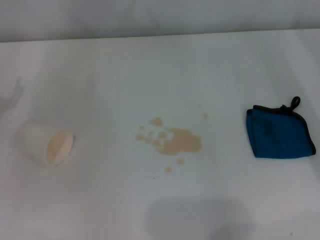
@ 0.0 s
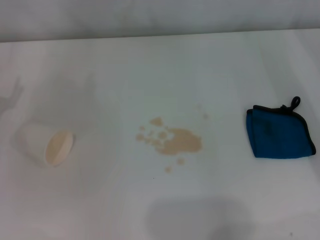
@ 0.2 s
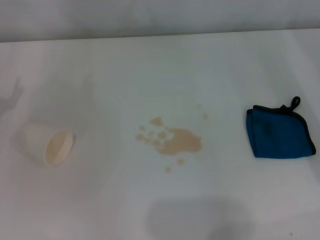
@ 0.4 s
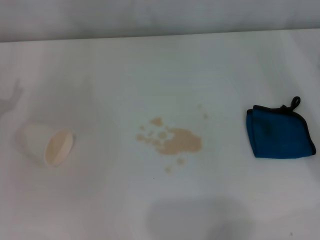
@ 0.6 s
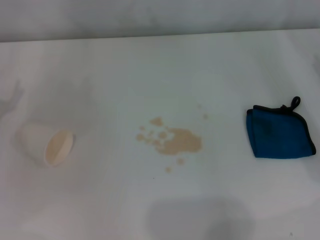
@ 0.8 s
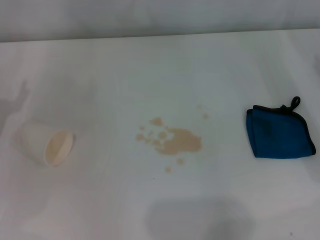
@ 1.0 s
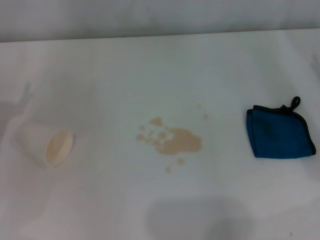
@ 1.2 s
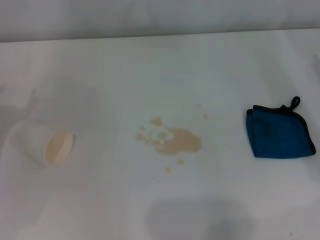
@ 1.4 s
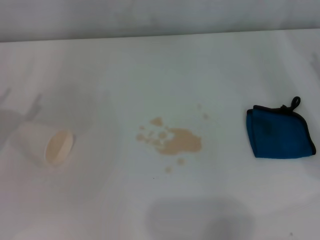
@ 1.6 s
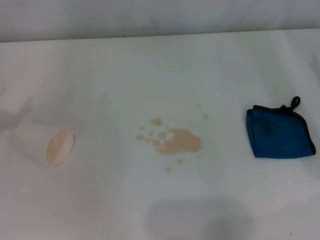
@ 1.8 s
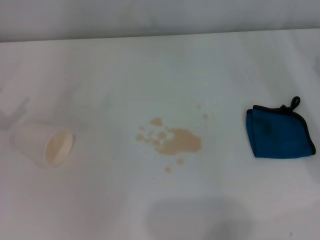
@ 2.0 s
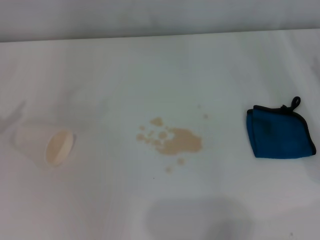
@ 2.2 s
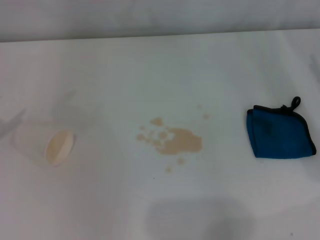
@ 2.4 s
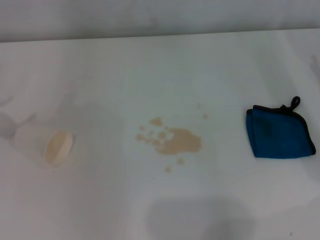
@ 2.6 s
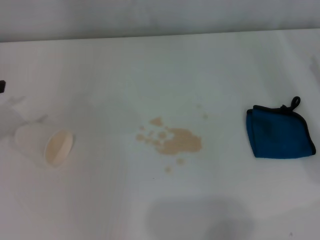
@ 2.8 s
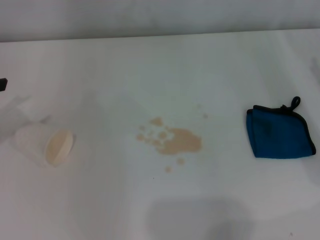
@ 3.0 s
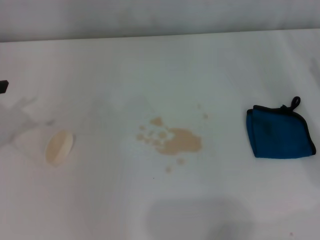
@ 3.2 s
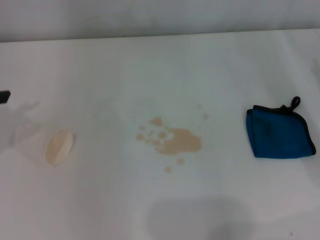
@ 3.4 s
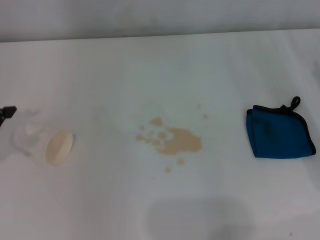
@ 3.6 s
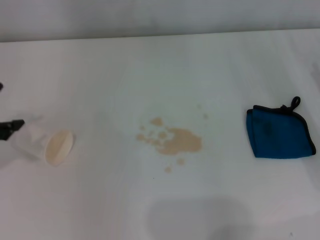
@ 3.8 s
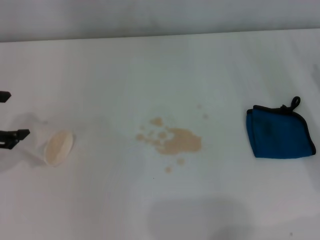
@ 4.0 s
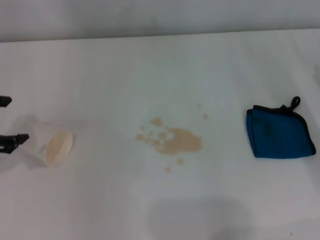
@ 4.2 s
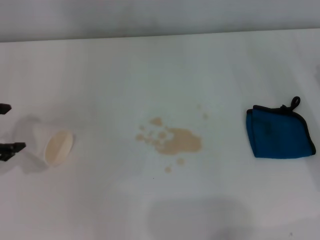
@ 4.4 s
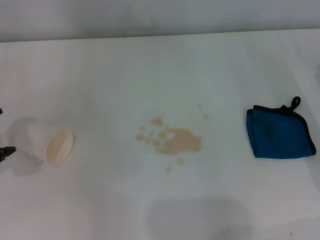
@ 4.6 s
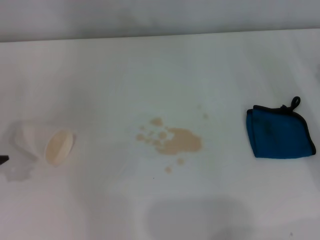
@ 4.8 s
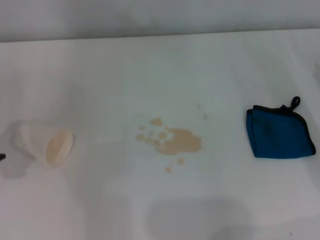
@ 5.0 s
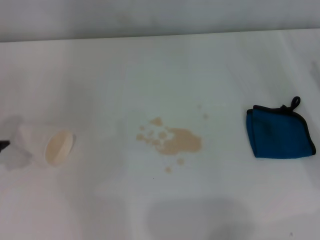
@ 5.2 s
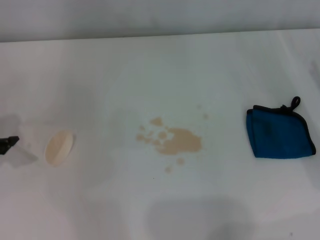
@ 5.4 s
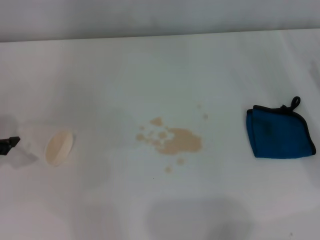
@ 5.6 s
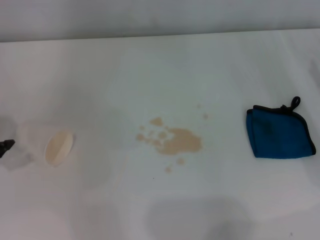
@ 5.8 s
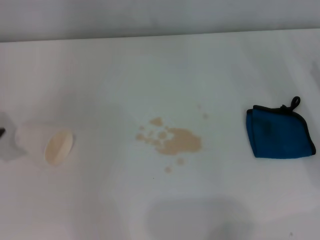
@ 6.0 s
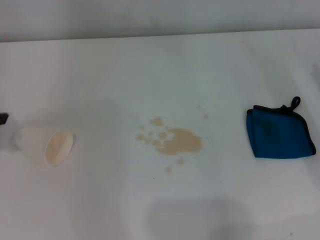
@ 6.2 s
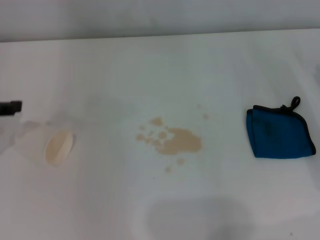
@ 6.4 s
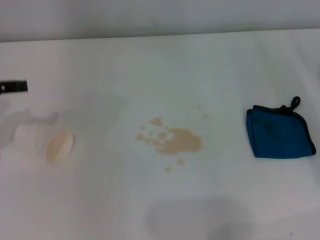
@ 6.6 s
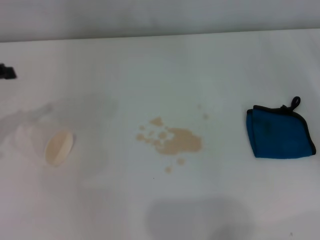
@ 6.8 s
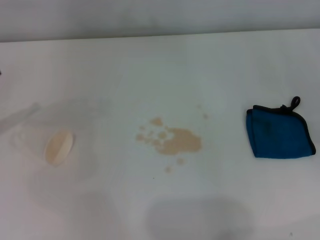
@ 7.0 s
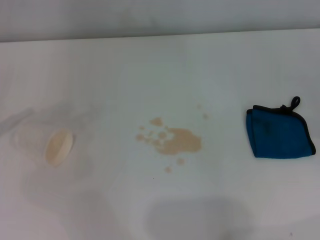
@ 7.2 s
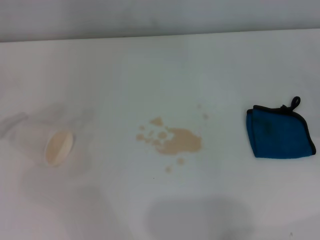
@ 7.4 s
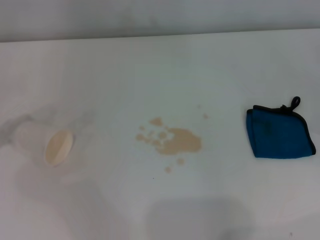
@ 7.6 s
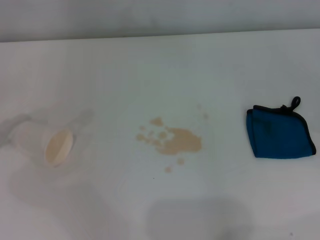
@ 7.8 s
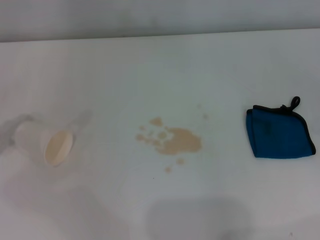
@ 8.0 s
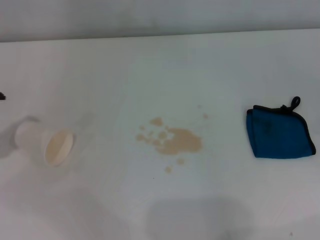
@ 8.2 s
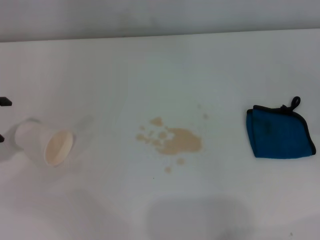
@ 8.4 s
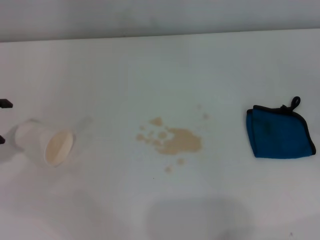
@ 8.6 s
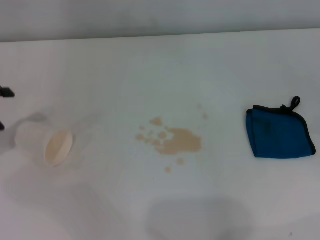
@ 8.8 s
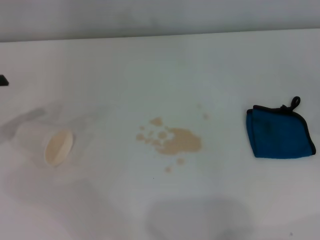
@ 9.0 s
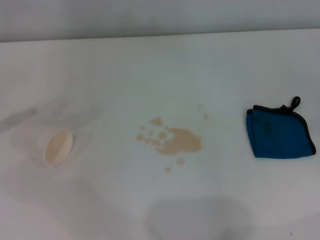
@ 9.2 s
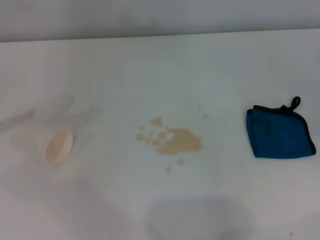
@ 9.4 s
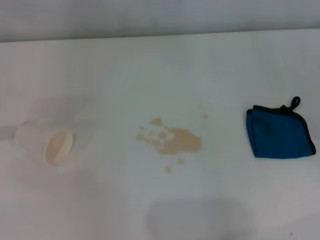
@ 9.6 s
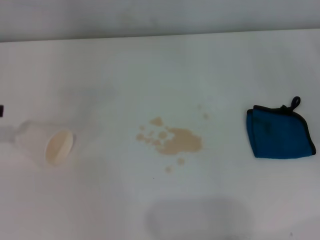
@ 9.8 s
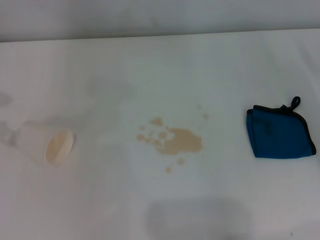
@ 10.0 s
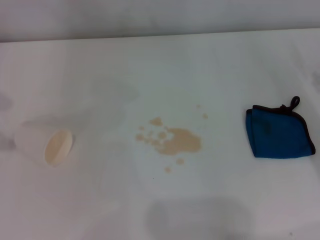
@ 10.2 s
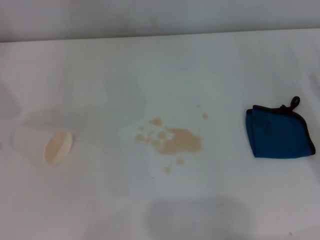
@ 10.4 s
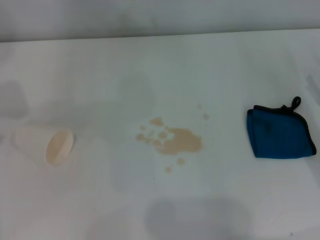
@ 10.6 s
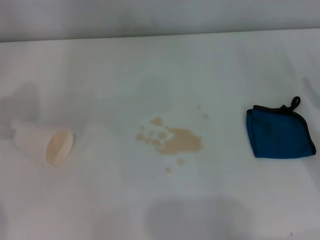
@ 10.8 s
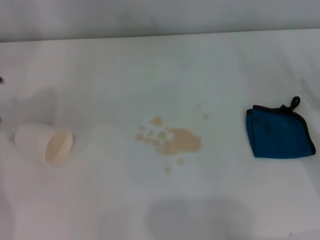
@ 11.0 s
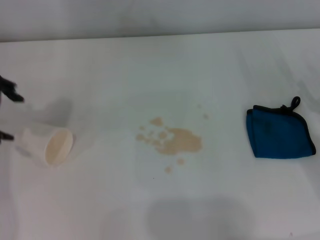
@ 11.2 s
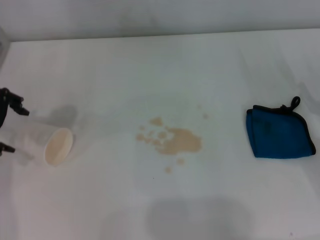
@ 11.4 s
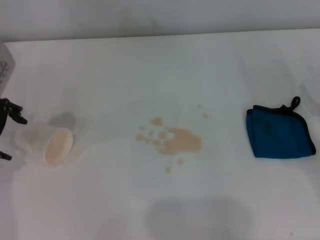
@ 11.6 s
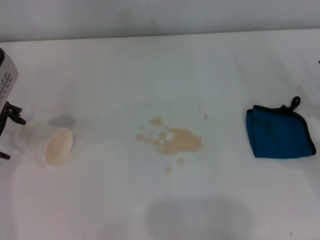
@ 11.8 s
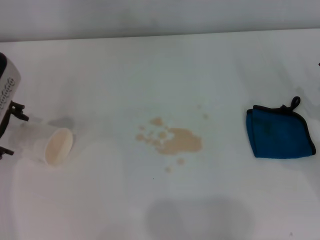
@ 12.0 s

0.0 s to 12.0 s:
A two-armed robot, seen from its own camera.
3.0 to 4.4 s: The left gripper changes place by approximately 5 cm.
4.4 to 6.0 s: The left gripper ends up about 5 cm from where it was.
10.4 to 12.0 s: The left gripper heads to the right and downward, covering approximately 10 cm.

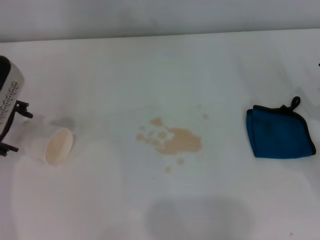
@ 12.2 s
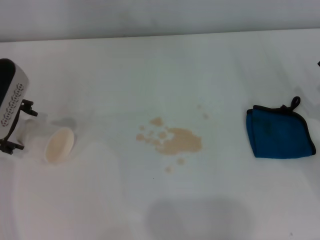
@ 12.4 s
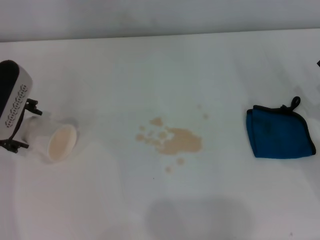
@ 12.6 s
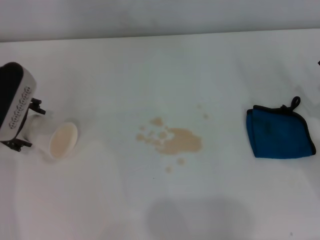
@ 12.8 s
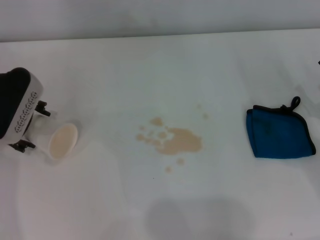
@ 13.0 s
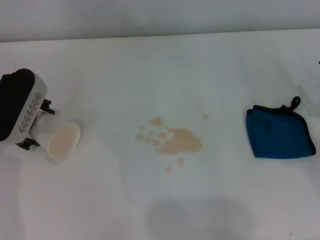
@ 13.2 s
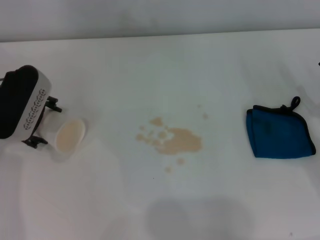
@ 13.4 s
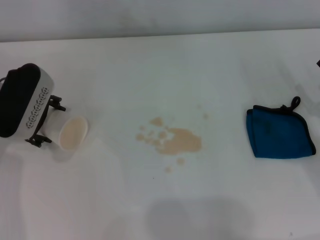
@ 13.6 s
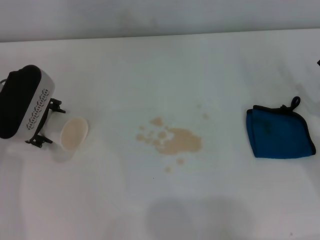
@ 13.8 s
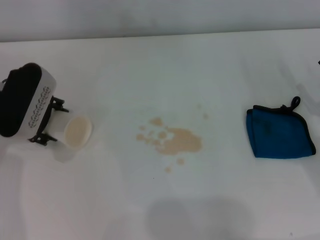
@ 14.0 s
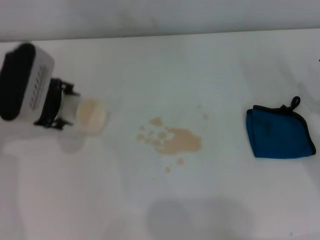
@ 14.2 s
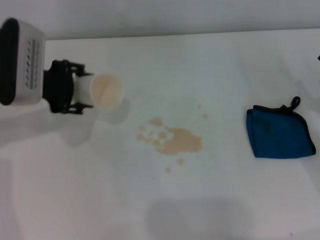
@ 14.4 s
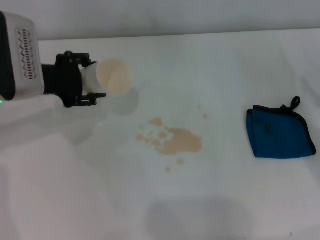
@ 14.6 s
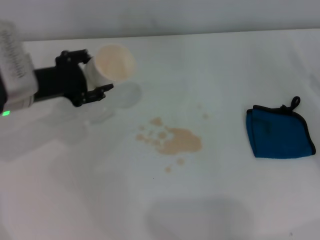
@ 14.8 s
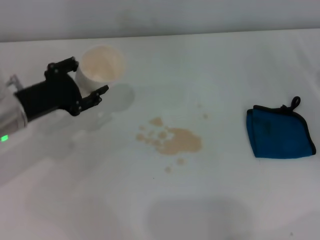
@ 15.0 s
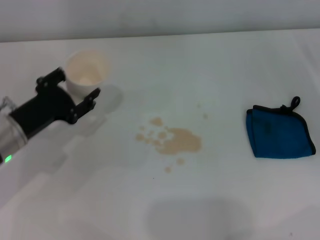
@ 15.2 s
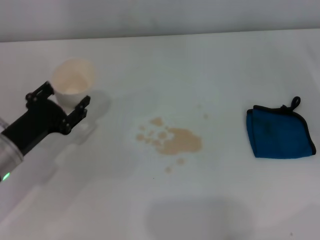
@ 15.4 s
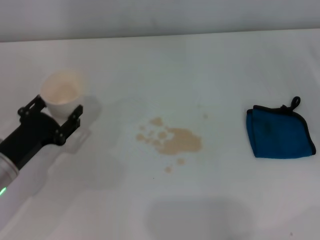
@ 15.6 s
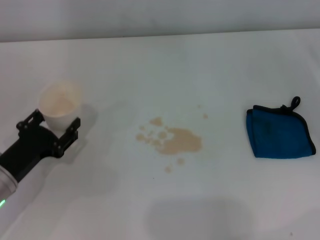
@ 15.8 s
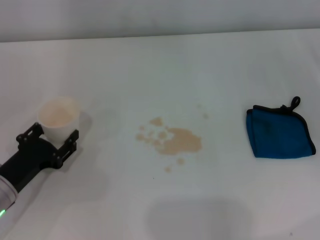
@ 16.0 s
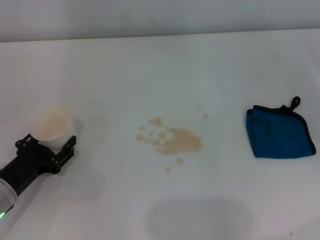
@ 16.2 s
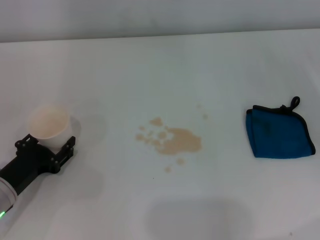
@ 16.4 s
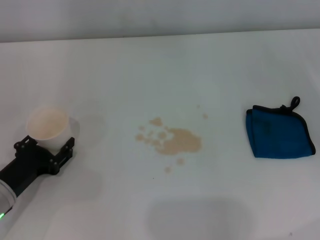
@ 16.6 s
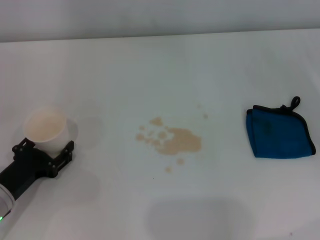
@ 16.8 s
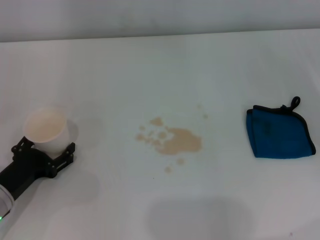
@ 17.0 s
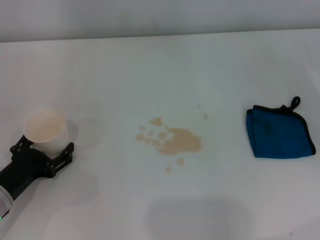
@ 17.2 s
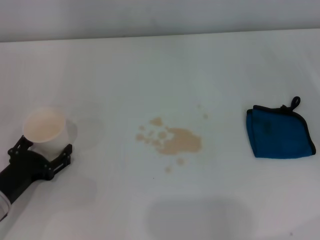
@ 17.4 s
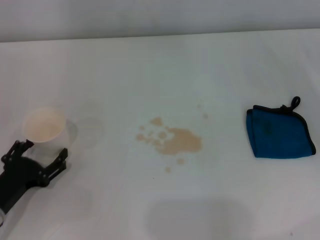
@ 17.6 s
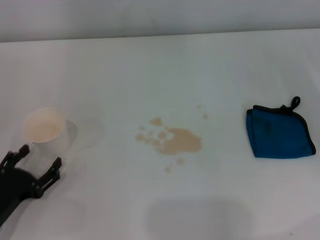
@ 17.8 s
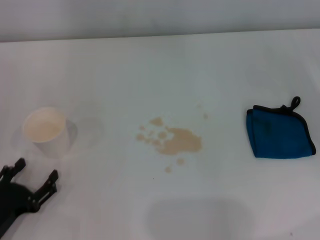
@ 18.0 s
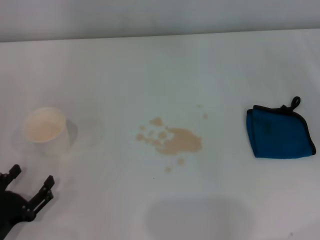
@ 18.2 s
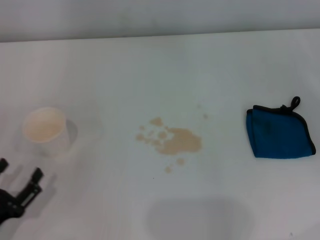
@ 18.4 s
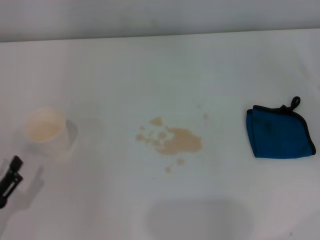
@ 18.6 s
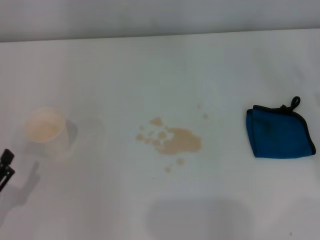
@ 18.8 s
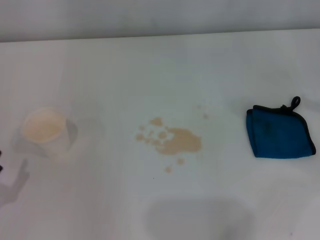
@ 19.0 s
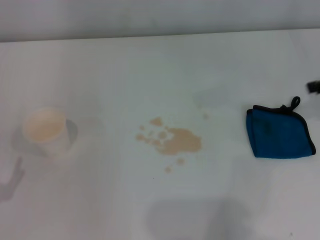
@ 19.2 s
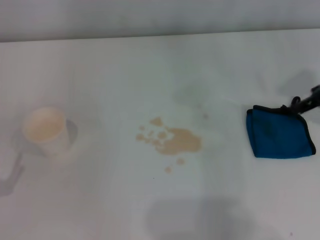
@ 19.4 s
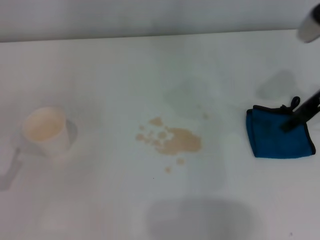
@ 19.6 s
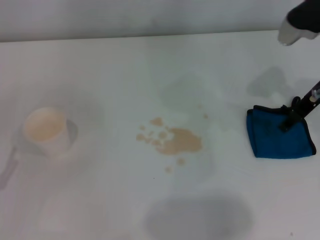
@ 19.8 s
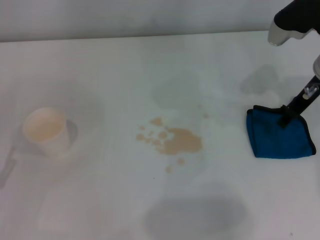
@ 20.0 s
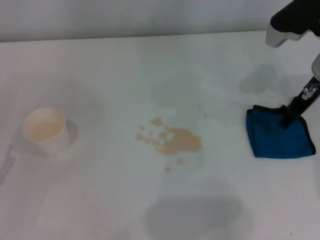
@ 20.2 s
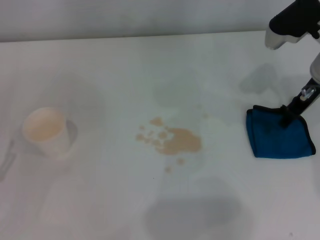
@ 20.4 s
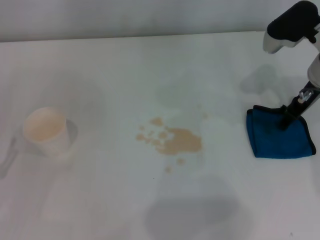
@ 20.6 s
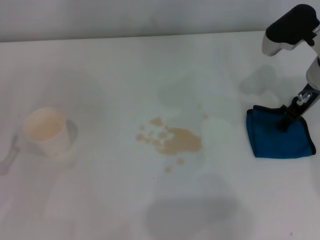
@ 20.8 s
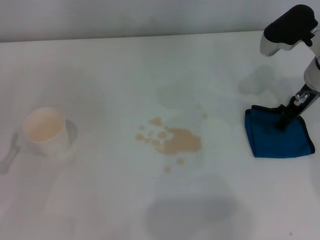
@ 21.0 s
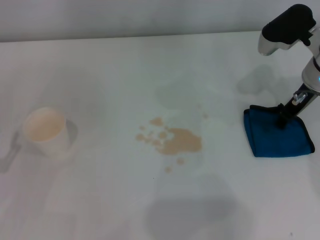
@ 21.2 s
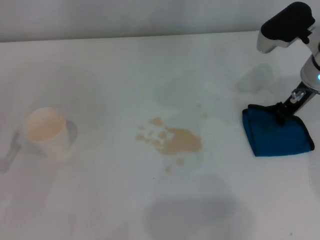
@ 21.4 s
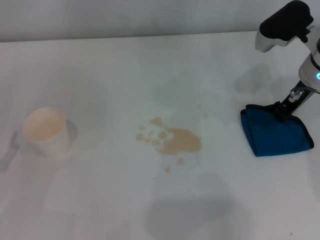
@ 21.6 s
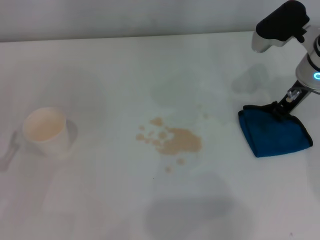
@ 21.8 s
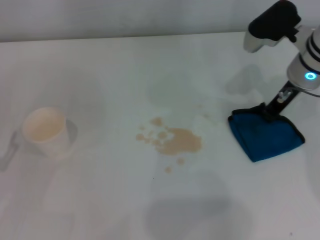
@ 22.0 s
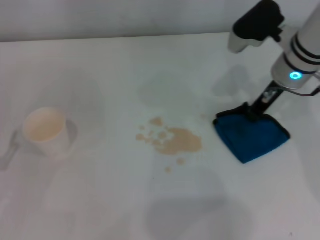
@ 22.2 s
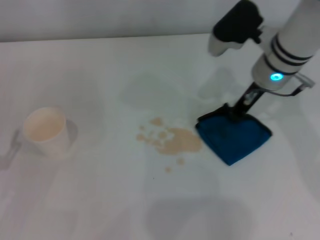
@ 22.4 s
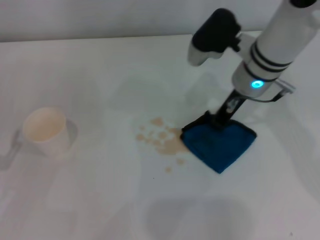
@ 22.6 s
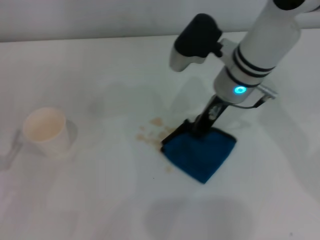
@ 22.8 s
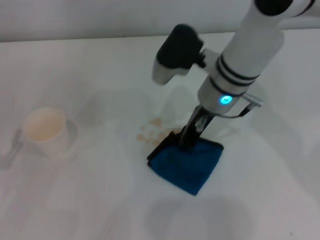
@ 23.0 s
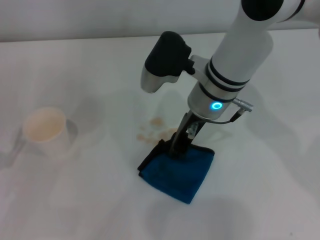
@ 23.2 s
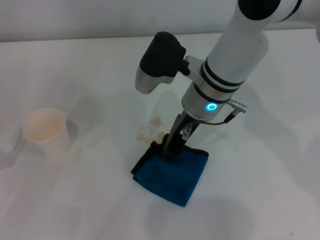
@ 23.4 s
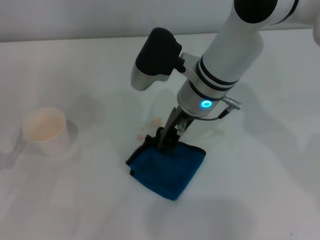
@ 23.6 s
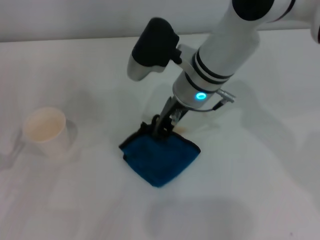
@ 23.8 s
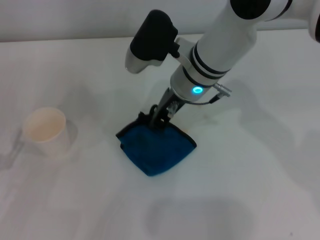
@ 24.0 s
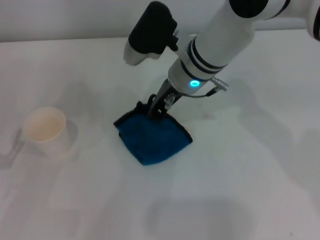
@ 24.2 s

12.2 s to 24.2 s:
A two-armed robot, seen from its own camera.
Step, 13.0 to 16.6 s: Stand the paper cup upright with the left gripper.
Step, 17.0 to 21.4 s: Grasp the rag with the right gripper.
12.2 to 13.8 s: The grippers stay close to where they were, moving slightly.
13.8 to 15.2 s: The left gripper goes roughly 10 cm downward and backward, and closes.
15.2 to 16.6 s: The left gripper is displaced backward and downward by approximately 10 cm.
16.6 to 18.2 s: The left gripper moves backward, approximately 10 cm, and opens up.
18.2 to 19.8 s: The left gripper shifts by roughly 5 cm. The right gripper travels to the left, forward and upward by approximately 20 cm.
19.8 to 21.2 s: The grippers stay close to where they were, moving slightly.
21.2 to 22.6 s: The right gripper moves to the left, roughly 10 cm, and closes.
22.6 to 24.2 s: The right gripper heads to the left, covering about 10 cm.
